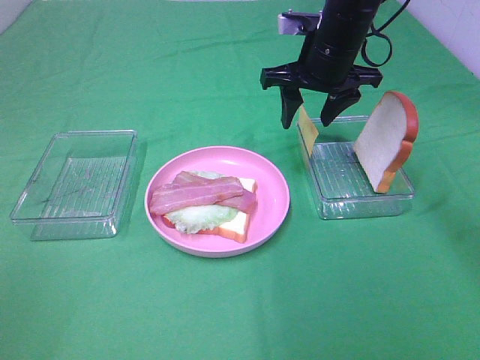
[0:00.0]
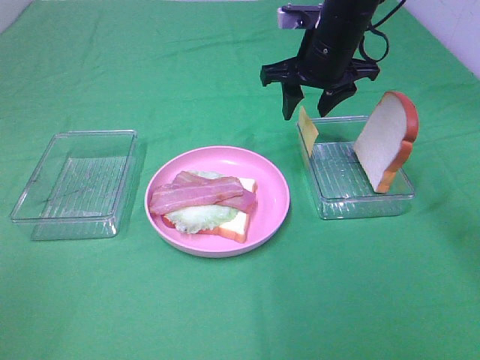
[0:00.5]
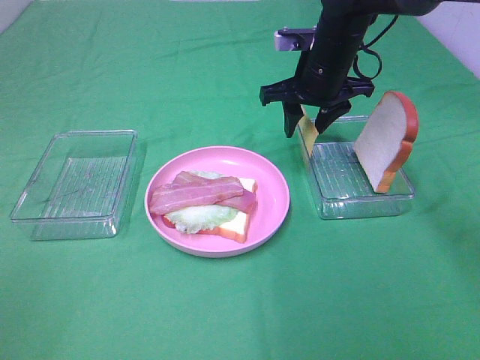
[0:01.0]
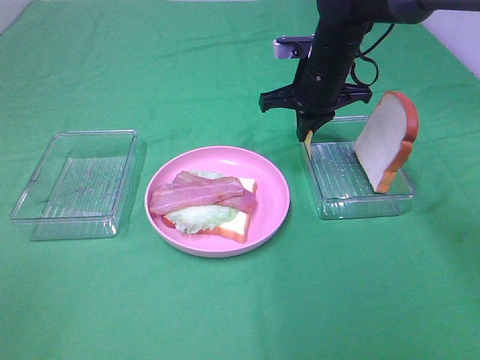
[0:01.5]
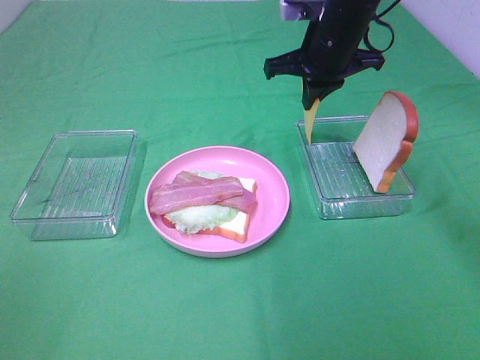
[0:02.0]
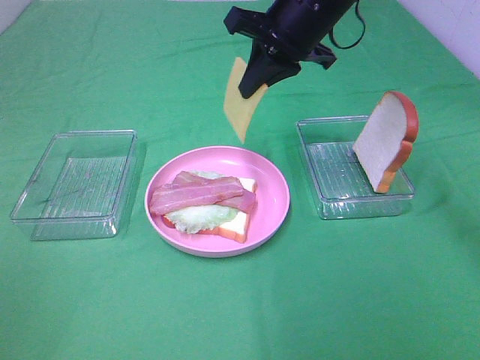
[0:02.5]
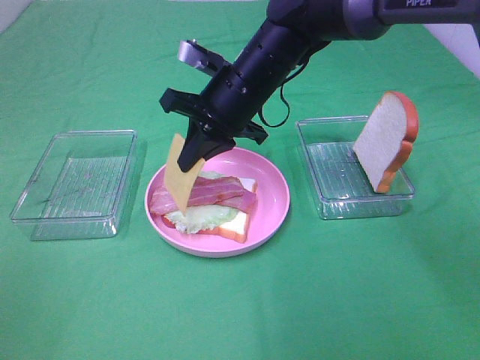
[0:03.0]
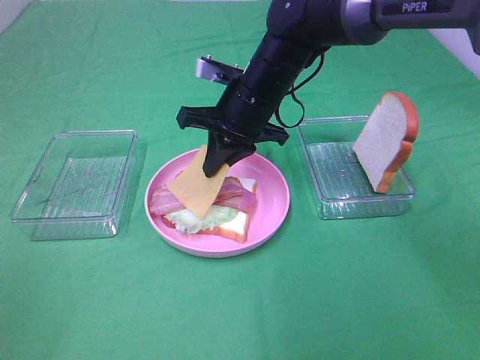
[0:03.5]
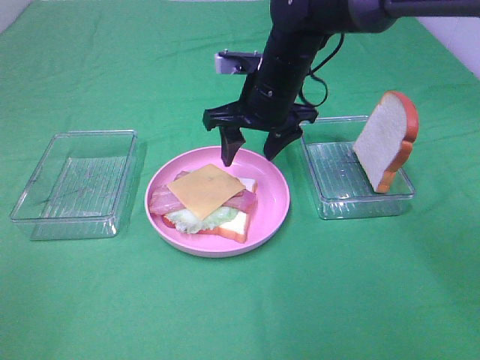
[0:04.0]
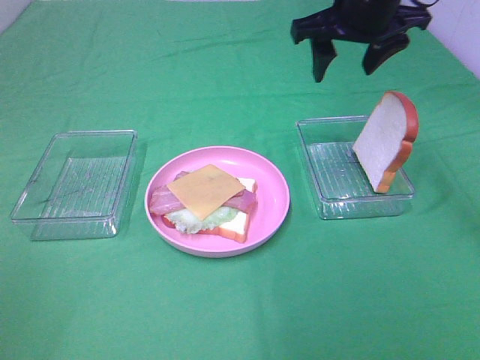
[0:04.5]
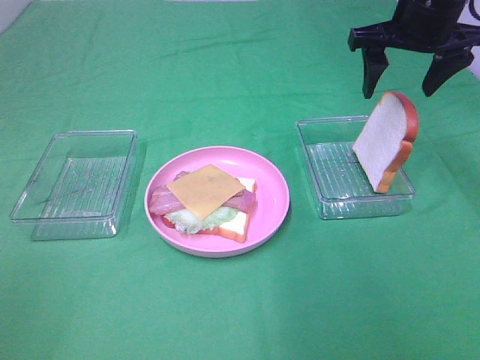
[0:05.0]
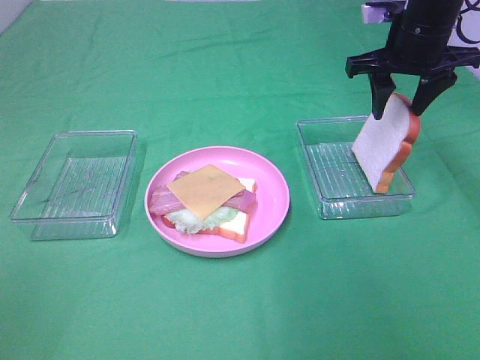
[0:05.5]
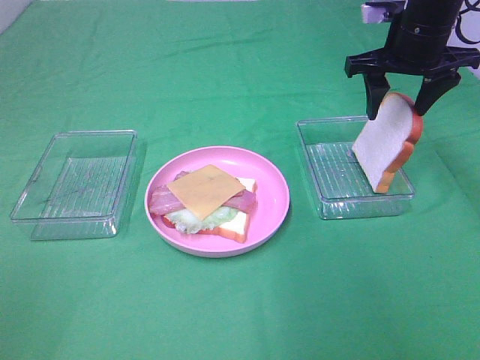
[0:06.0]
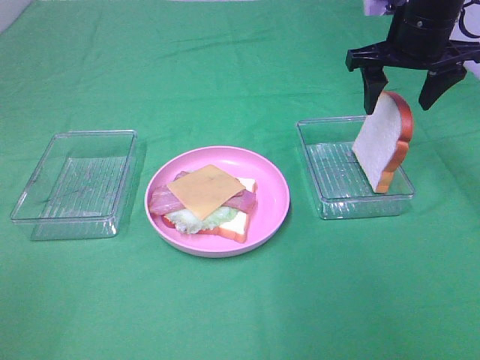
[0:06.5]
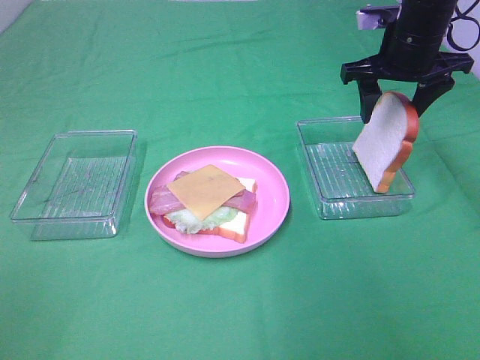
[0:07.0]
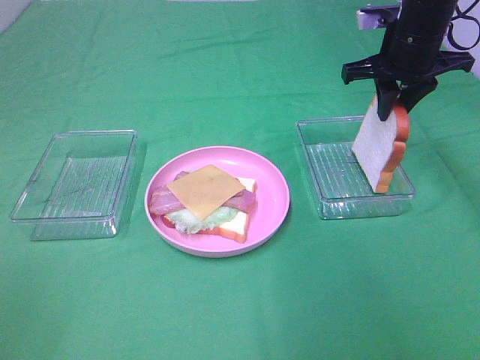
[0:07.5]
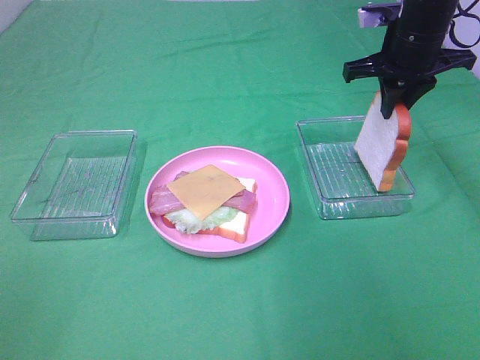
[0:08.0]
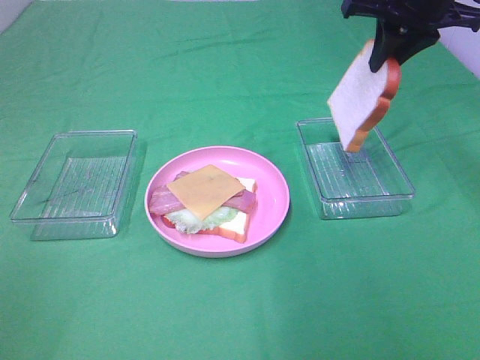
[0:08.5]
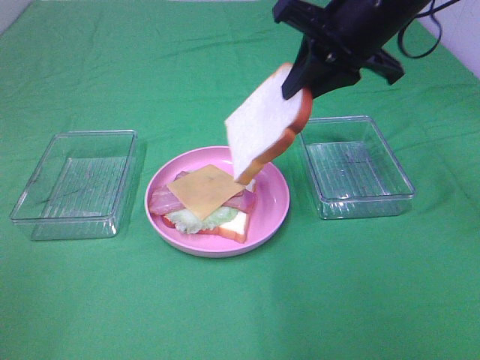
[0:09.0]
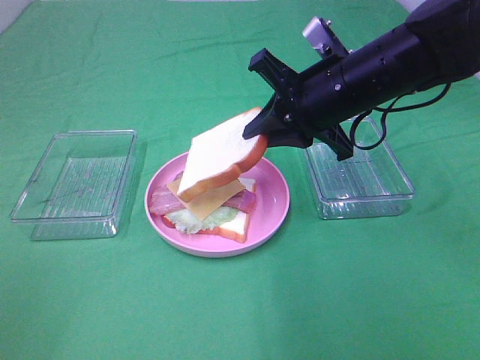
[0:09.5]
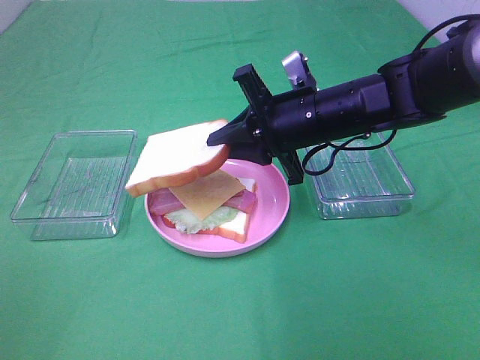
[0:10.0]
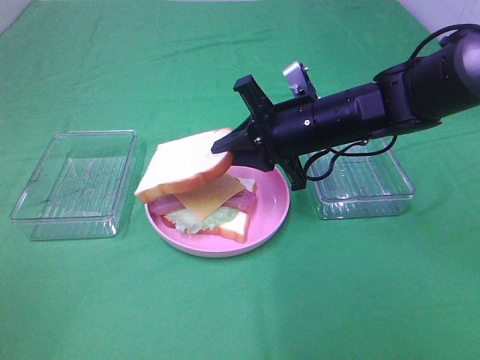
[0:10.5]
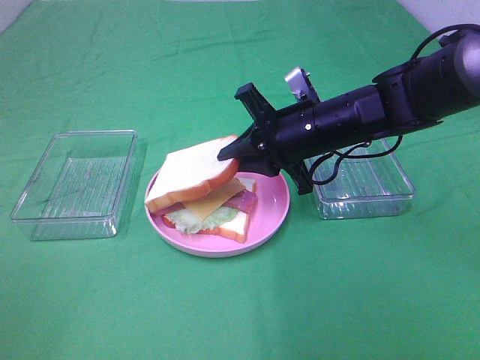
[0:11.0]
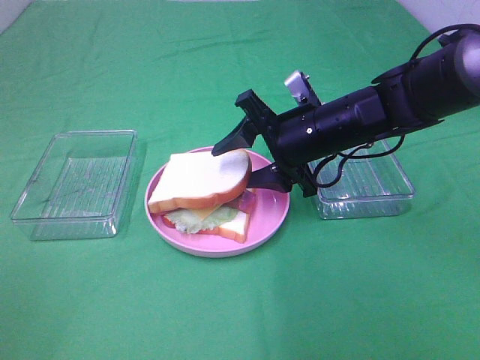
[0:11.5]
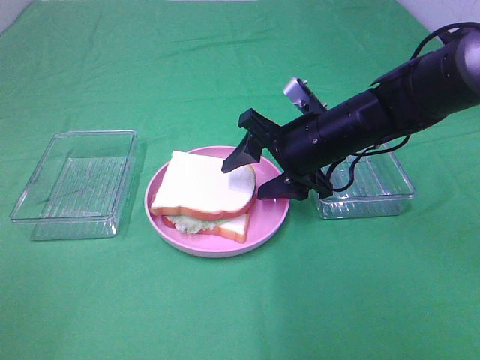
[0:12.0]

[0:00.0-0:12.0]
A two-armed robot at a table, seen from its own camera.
Task of the whole recording: Make sandwiches.
Step, 0:00.0 to 0:01.5: Right hand:grab the cheese slice.
Step, 0:02.0 to 0:03.5: Right hand:place the cheese slice on top of the bacon.
Step, 0:04.0 to 0:07.5: Right hand:grab the bread slice.
0:00.0 to 0:02.0: The right gripper closes.
0:02.0 to 0:04.0: The right gripper shifts about 5 cm to the left, and opens its fingers.
0:04.0 to 0:06.0: The right gripper goes roughly 15 cm to the right.
0:06.0 to 0:08.0: The right gripper closes up.
0:08.0 to 0:10.0: The right gripper is displaced to the left, backward and downward by about 15 cm.
0:10.0 to 0:12.0: The right gripper opens its fingers.

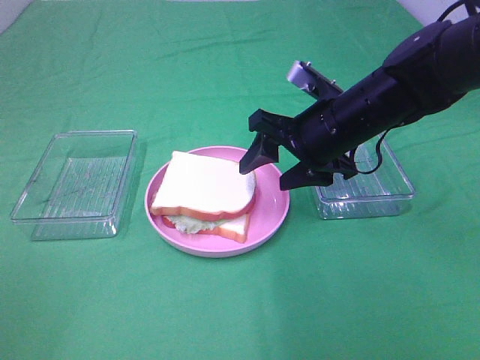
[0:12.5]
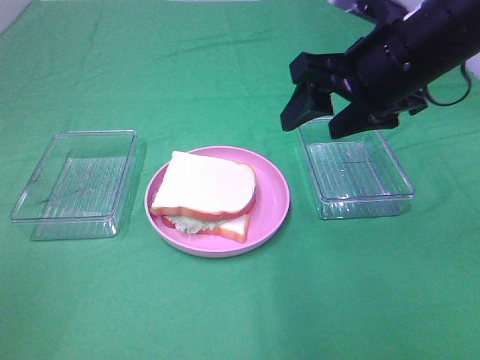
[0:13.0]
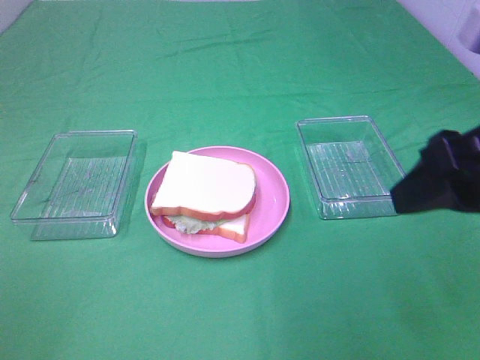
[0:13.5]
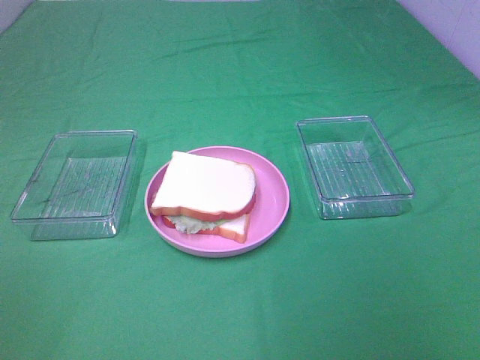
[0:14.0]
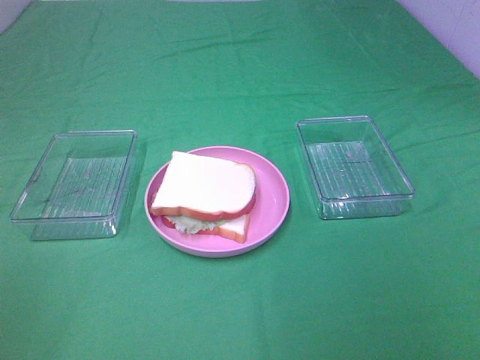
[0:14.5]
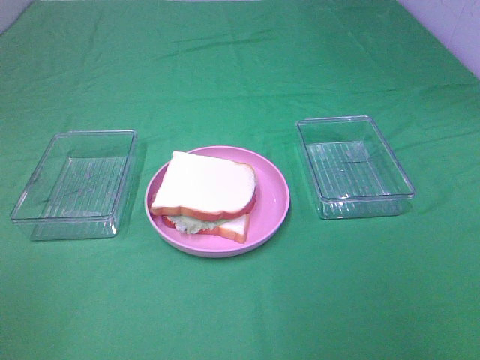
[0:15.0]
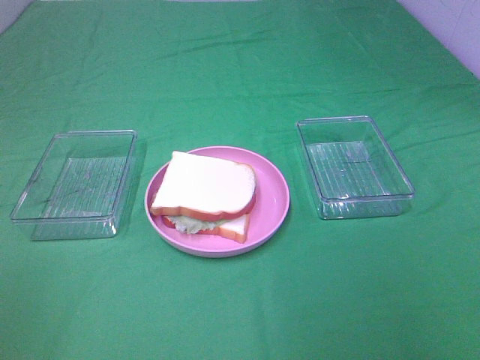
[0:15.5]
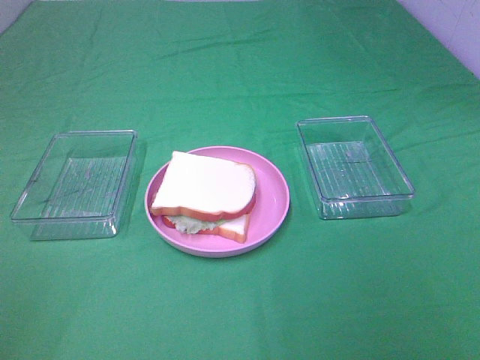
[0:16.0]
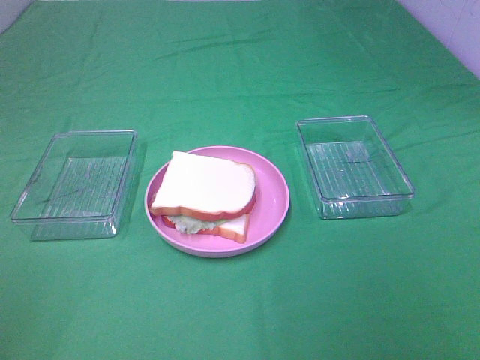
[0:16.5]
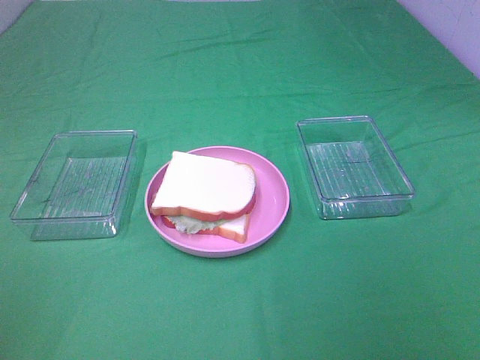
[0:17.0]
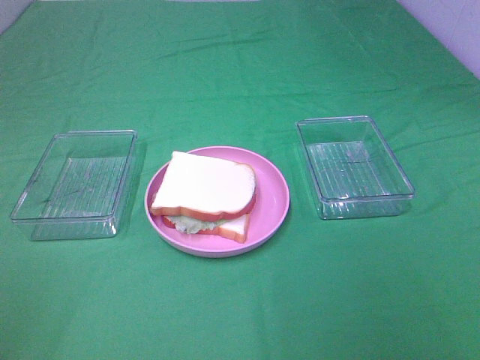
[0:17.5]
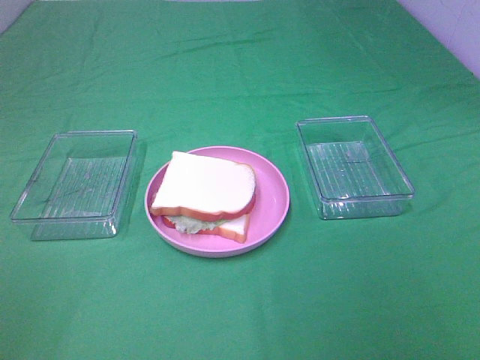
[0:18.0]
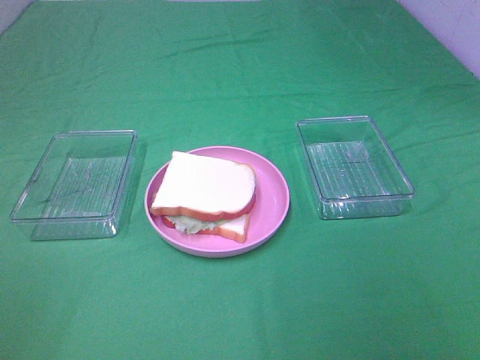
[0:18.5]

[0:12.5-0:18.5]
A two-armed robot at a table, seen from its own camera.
Task of the whole recording: Make sandwiches.
0:12.5 to 0:14.5: The right gripper travels backward and to the right by roughly 40 cm.
0:16.5 to 0:18.5: The two grippers keep their place.

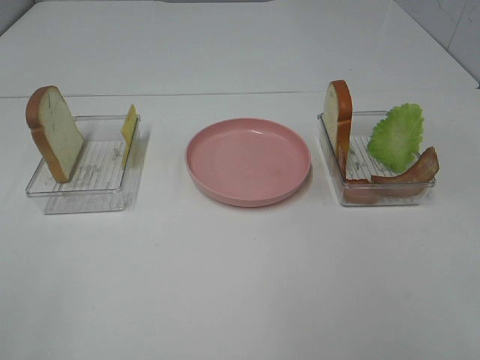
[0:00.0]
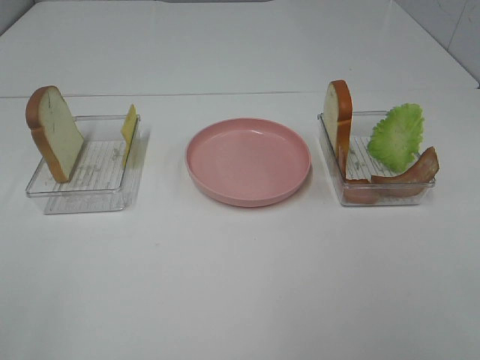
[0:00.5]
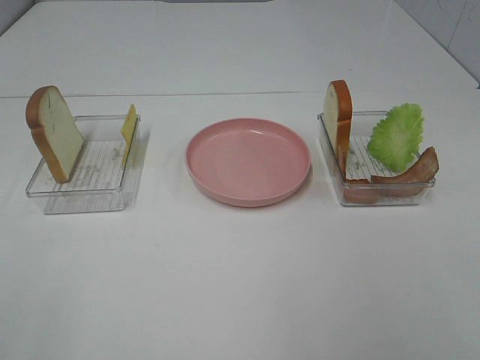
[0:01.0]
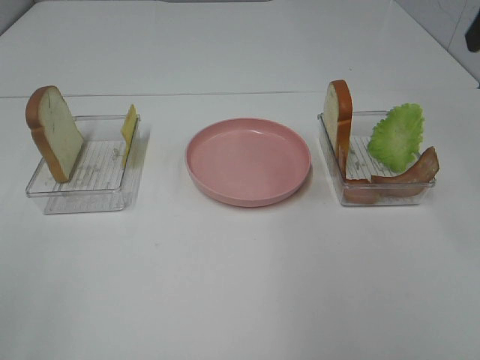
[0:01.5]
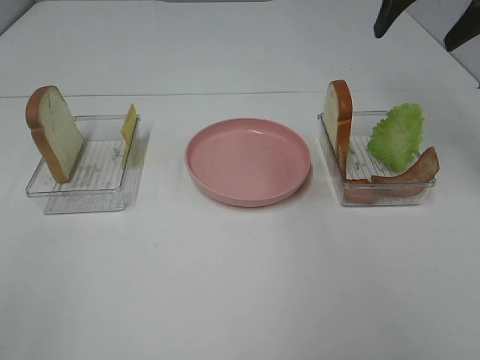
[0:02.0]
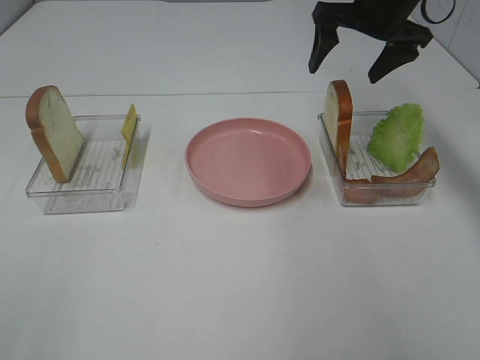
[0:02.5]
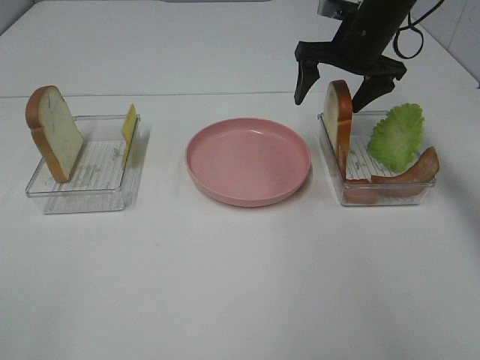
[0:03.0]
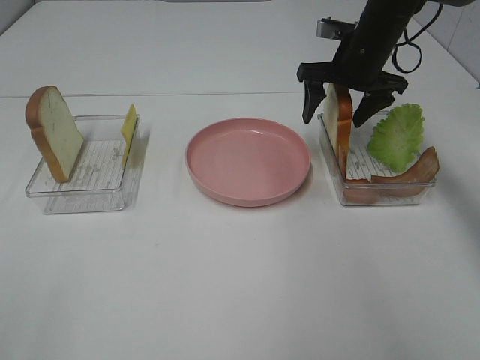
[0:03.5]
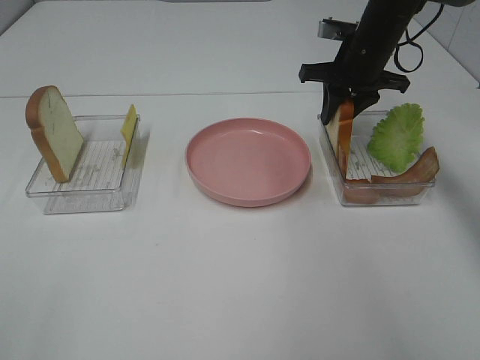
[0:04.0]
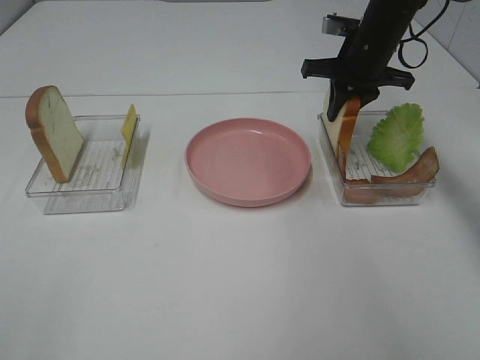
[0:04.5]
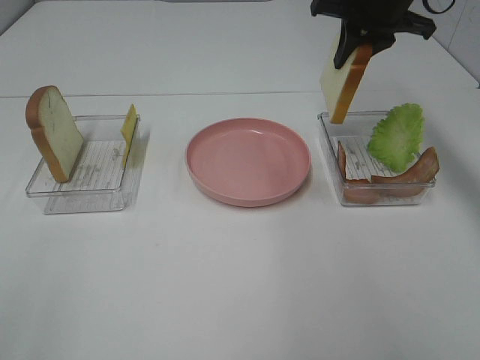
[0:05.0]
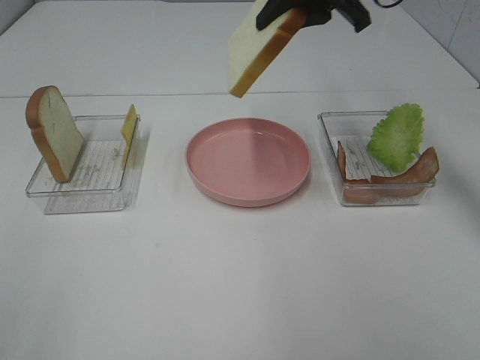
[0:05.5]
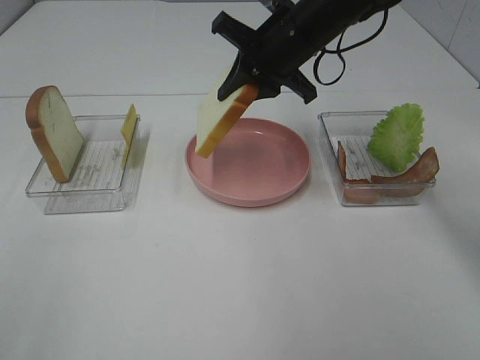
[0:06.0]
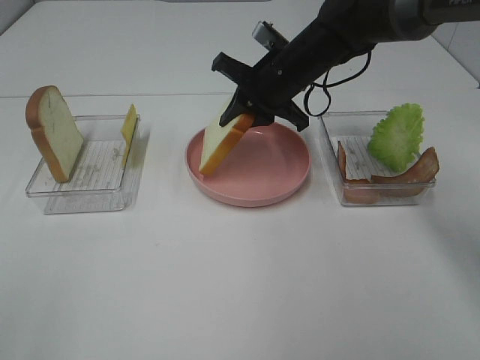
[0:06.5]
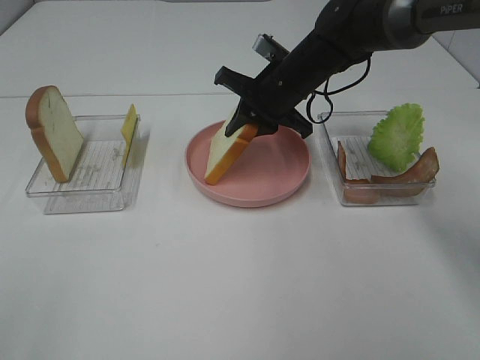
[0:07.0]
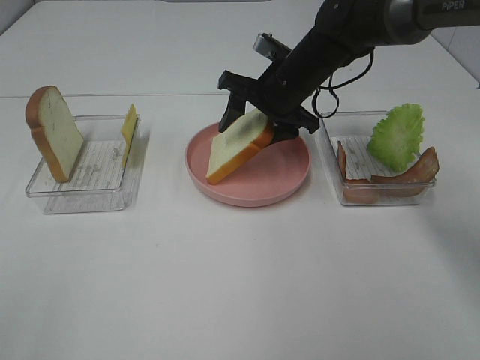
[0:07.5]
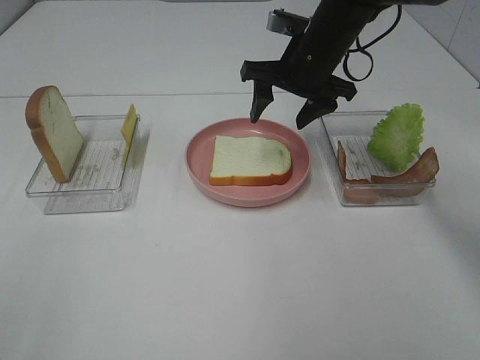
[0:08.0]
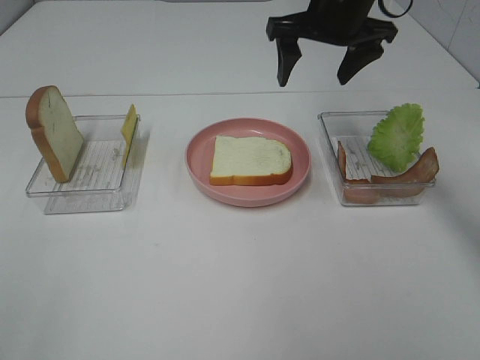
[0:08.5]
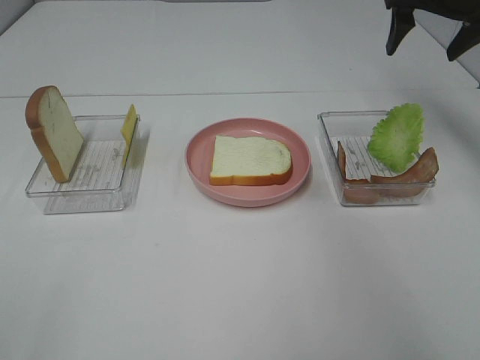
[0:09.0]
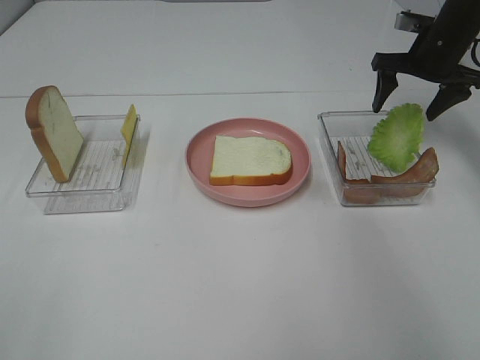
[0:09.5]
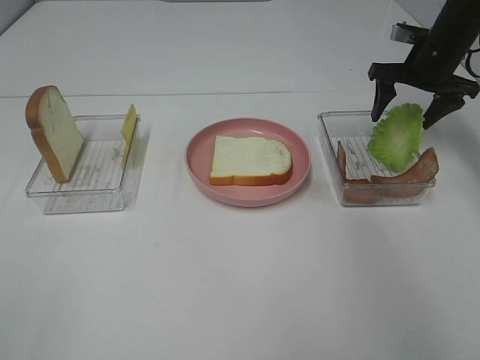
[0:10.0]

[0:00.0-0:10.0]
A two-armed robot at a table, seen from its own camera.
Task of the whole recording: Make sandwiches.
Step, 0:00.0 to 0:04.5: Right hand:grab the bread slice.
Step, 0:05.0 to 0:08.0: Right hand:place the bread slice on the plate.
0:00.0 to 0:02.0: The right gripper shifts about 40 cm forward.
0:02.0 to 0:04.0: The right gripper goes approximately 15 cm downward, forward and to the left, and closes up.
0:04.0 to 0:06.0: The right gripper goes some 10 cm to the left and backward, and travels upward and back again, about 15 cm each way.
0:06.0 to 0:08.0: The right gripper opens up.
0:08.0 to 0:10.0: The right gripper moves to the right, roughly 20 cm.
